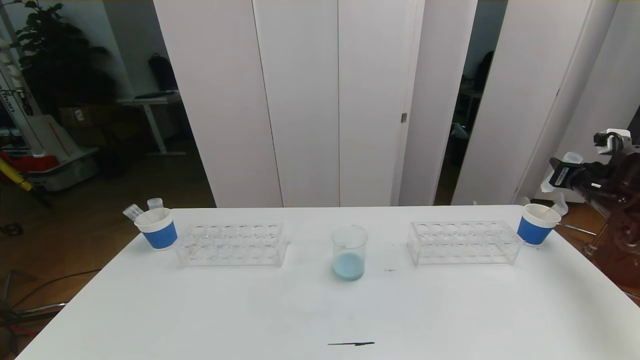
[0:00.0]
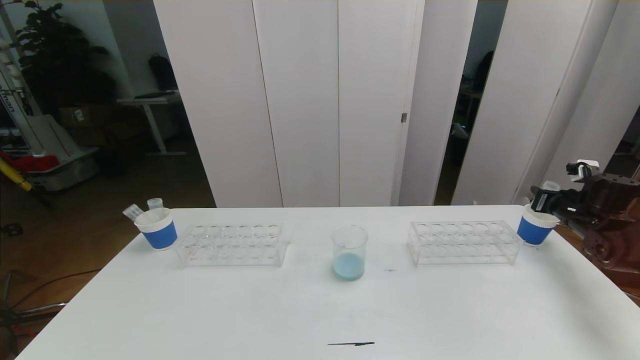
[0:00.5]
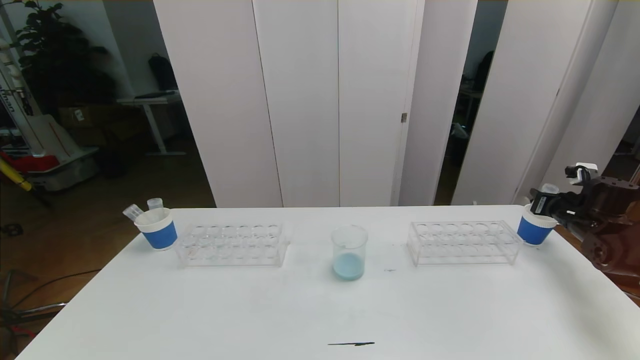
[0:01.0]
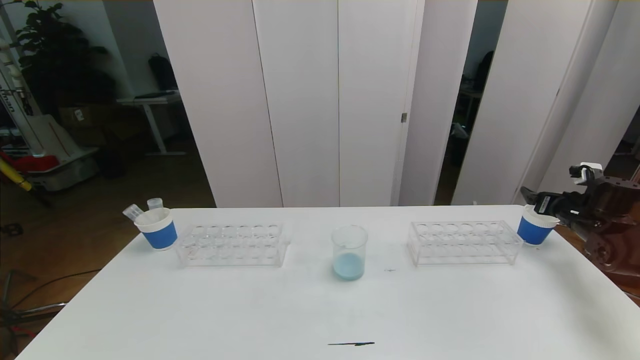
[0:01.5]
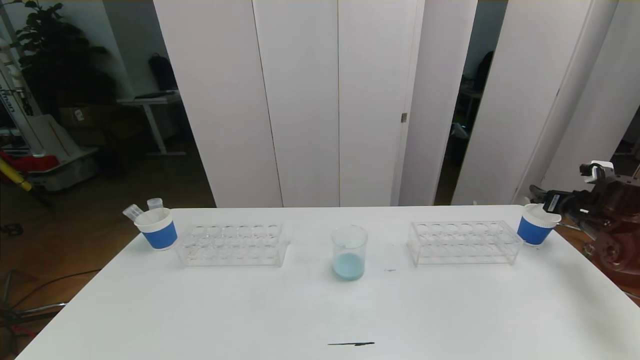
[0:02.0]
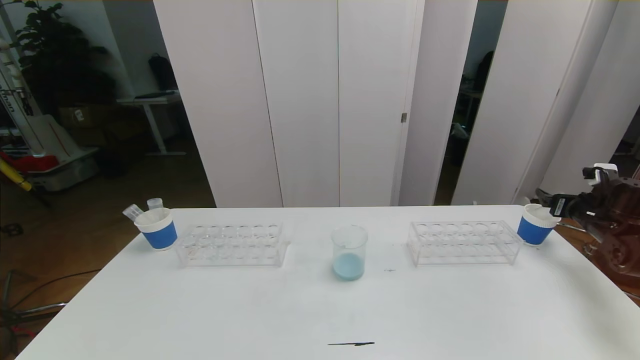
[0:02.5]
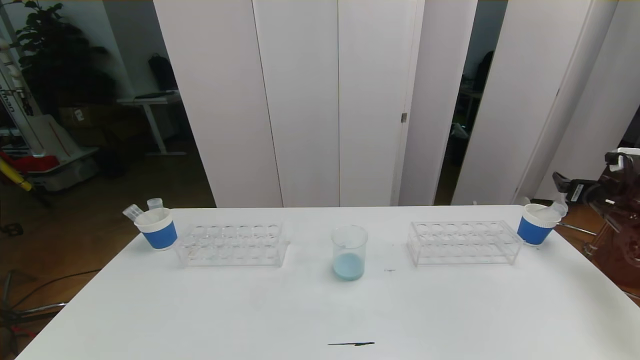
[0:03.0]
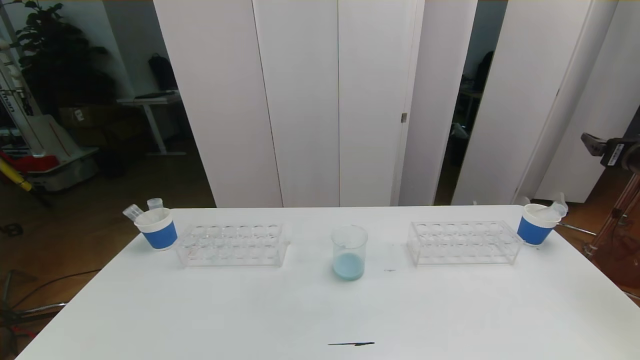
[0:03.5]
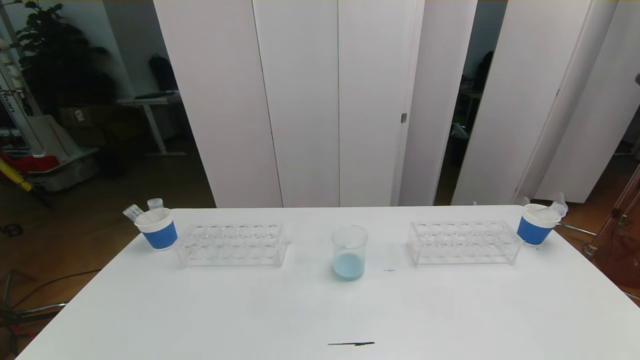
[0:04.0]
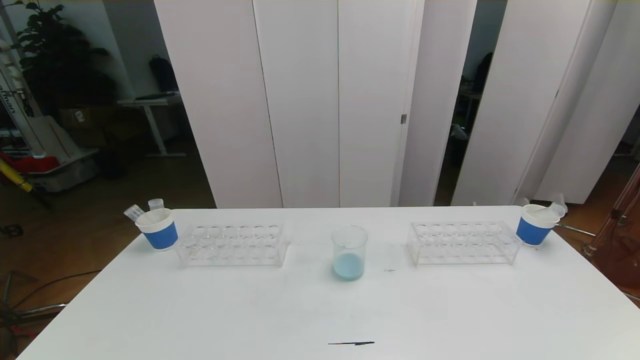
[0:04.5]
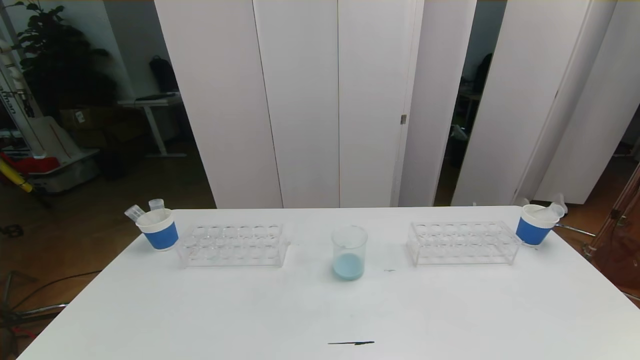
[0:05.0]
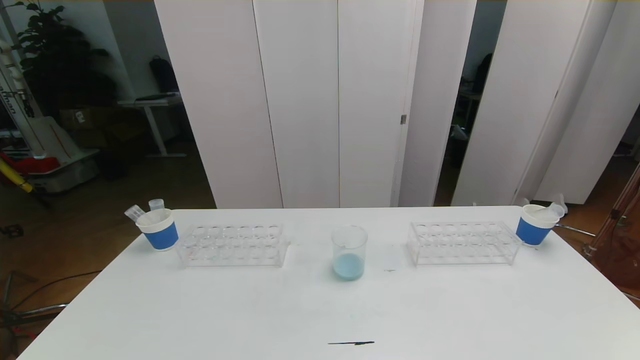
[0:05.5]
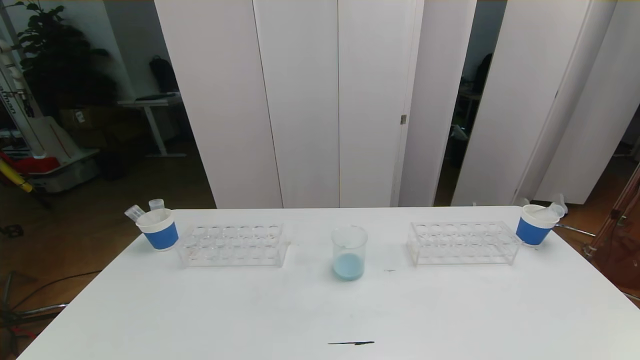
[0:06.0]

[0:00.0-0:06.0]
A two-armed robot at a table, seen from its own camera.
Task of the whole recording: pick up the test tube with red pigment the test tube with blue pigment and the test tube with white pigment by grippers and pour them into the beaker.
0:00.0 to 0:02.0: The right gripper shifts roughly 5 cm downward, and opens its fingers.
0:02.0 to 0:04.0: The right gripper heads upward and backward, covering some 30 cm.
